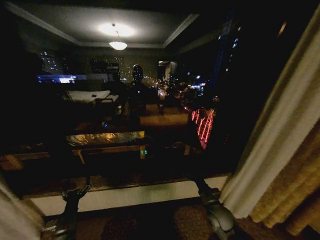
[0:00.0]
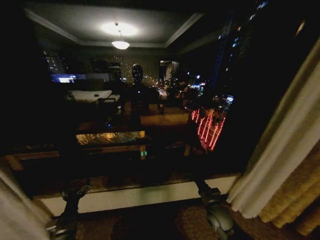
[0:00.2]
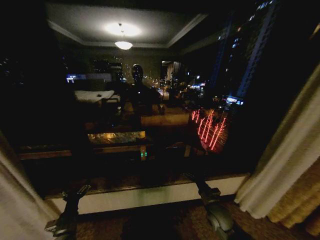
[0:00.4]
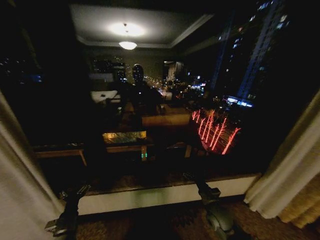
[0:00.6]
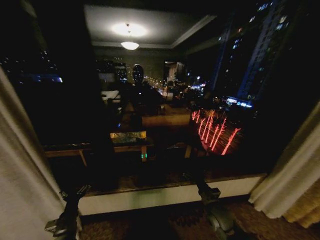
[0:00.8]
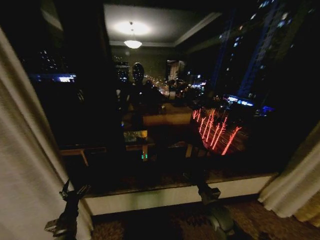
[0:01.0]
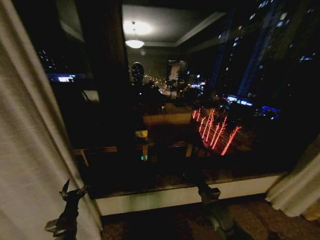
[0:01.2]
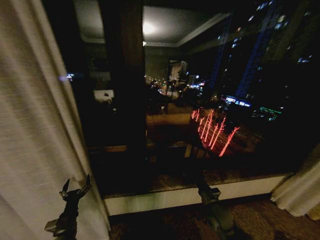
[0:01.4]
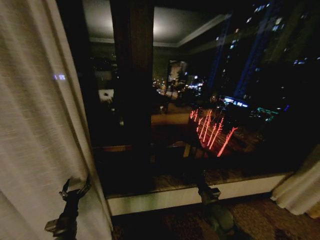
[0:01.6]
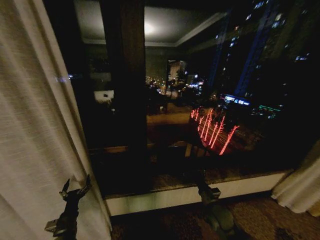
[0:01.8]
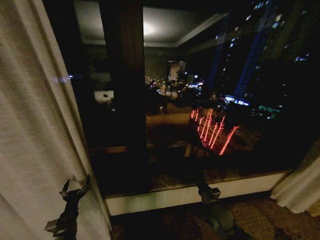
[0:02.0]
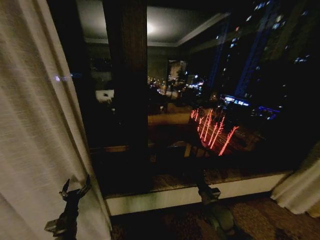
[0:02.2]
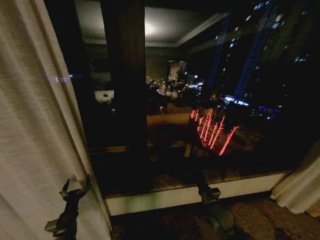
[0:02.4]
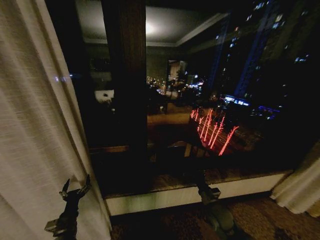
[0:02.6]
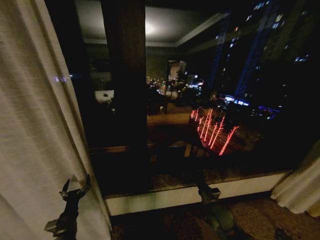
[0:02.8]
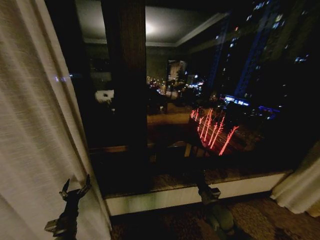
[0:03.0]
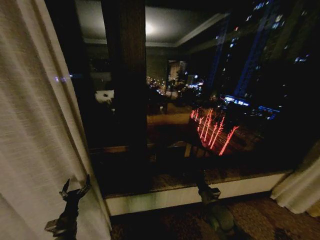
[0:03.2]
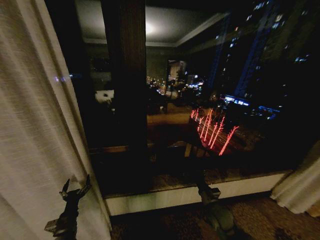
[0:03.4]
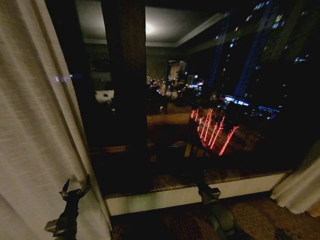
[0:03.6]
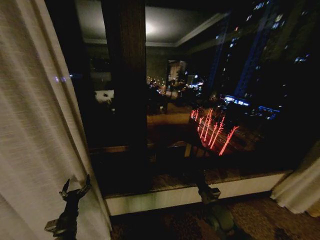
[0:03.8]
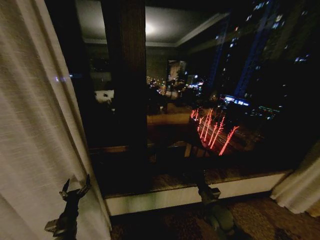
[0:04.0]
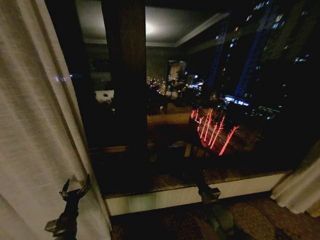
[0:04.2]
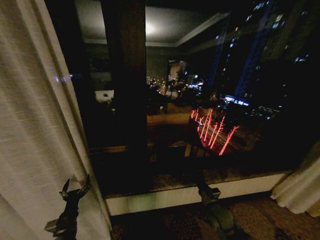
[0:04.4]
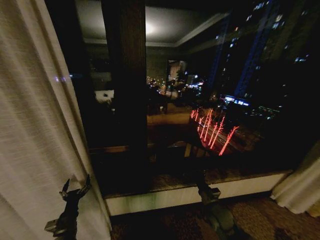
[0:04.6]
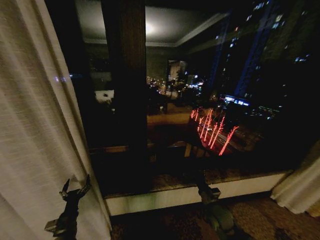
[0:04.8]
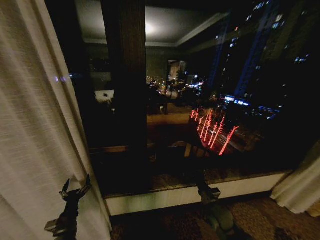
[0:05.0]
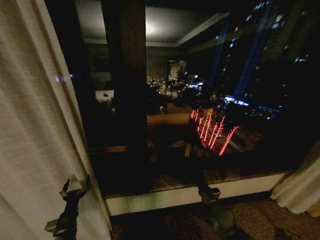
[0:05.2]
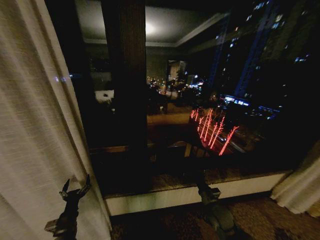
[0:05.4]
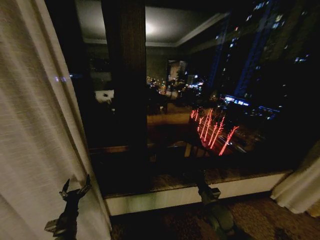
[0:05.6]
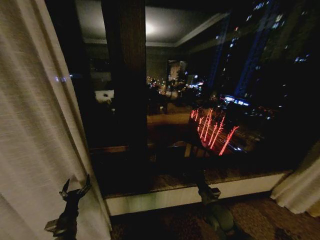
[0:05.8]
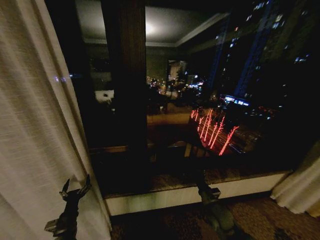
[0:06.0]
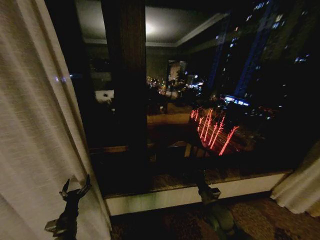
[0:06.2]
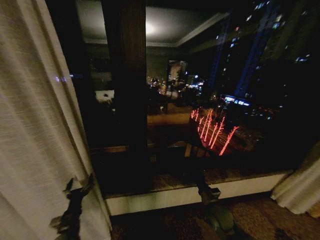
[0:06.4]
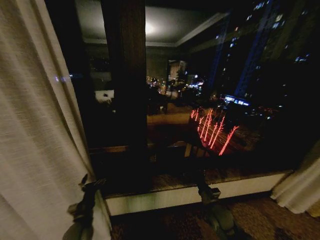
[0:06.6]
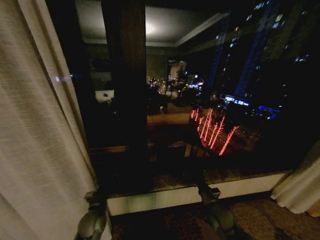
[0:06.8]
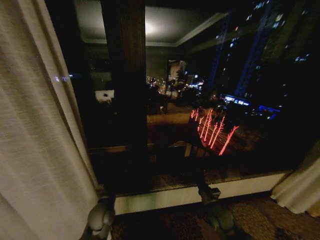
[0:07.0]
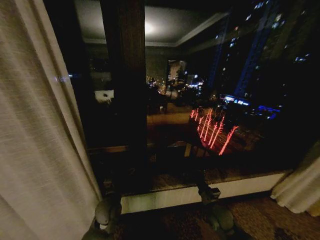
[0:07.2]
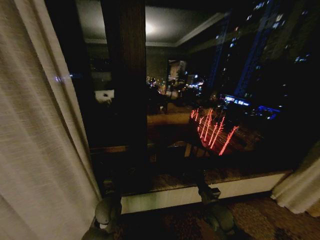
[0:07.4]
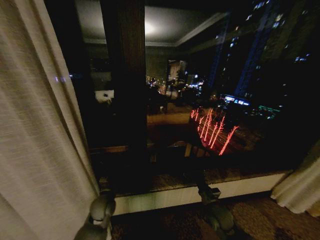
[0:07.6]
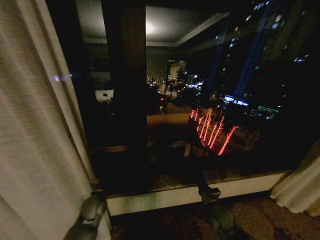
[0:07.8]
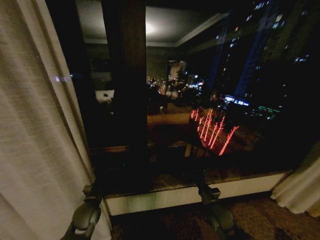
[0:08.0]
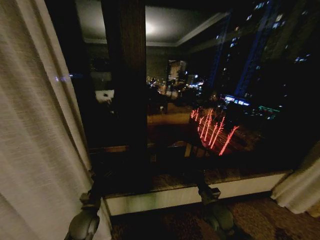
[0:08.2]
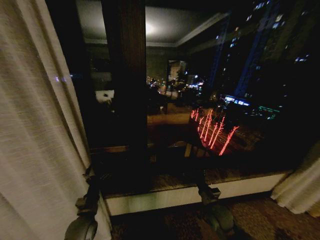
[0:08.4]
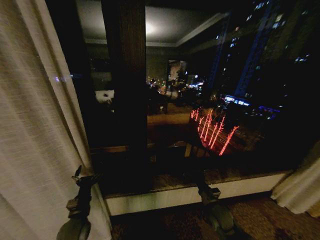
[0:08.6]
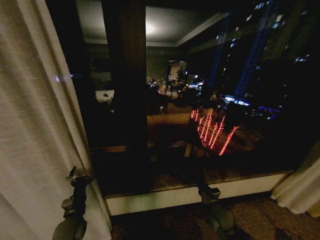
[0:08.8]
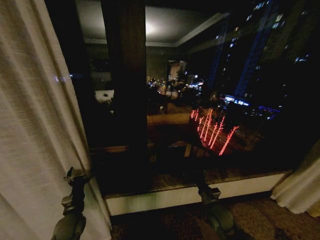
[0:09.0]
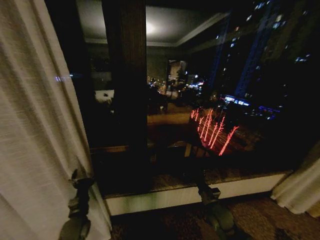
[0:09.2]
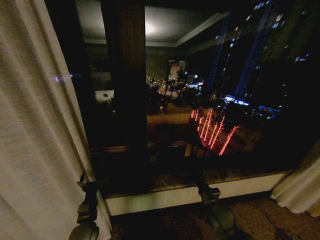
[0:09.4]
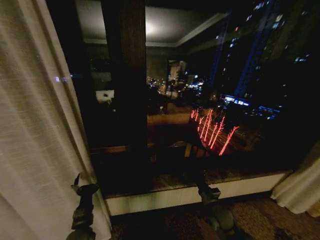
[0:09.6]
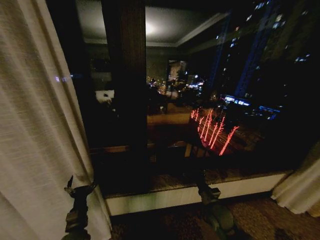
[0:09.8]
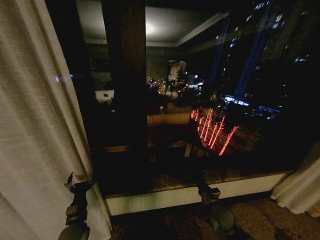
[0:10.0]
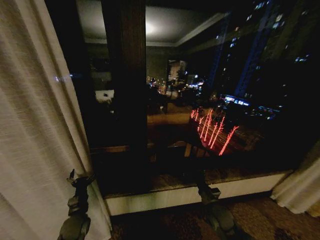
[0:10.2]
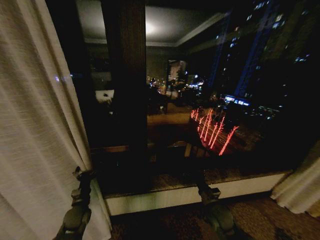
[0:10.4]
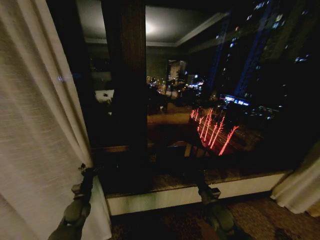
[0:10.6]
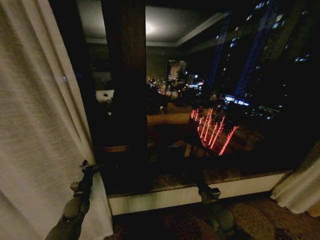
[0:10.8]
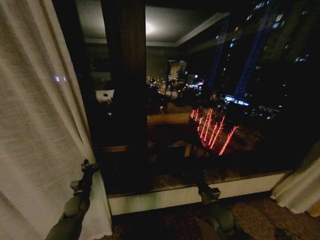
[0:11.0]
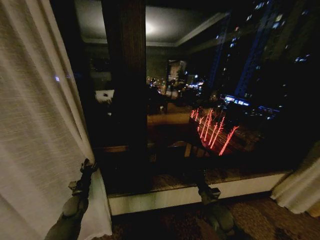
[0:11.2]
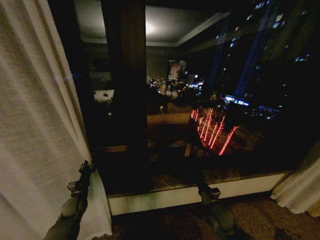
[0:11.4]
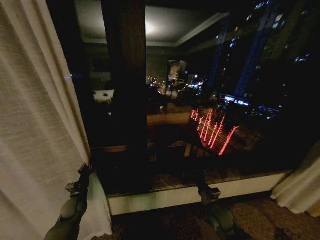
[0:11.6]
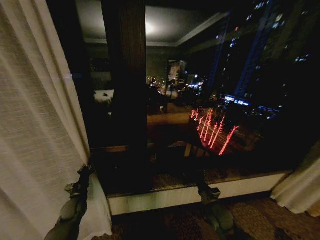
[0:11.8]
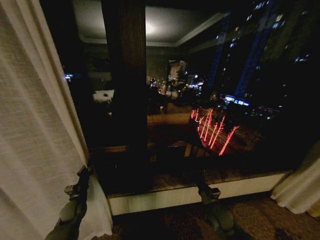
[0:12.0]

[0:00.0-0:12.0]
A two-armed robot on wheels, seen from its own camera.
Task of the whole recording: Open the curtains by pulling them apart, changing their state from closed to fully open.
0:01.6 to 0:06.0: Both grippers stay put.
0:06.0 to 0:07.6: The left gripper moves to the right, forward and upward, about 20 cm.
0:07.6 to 0:09.0: The left gripper is displaced to the left and backward by some 10 cm.
0:10.4 to 0:12.0: The left gripper ends up approximately 5 cm from where it was, and closes.

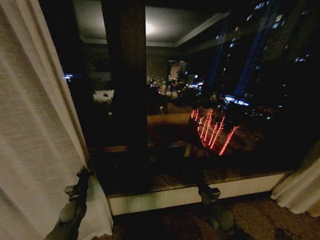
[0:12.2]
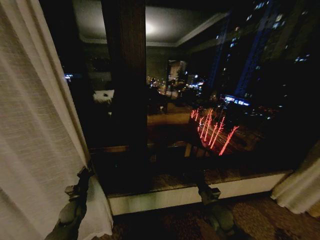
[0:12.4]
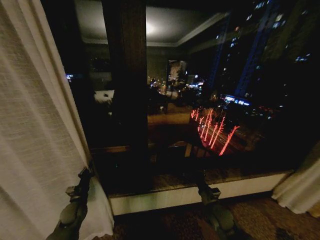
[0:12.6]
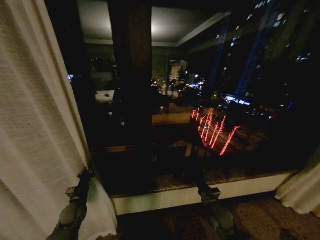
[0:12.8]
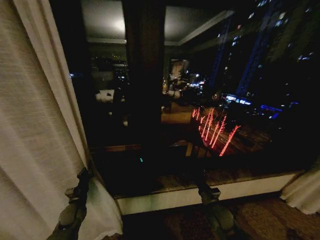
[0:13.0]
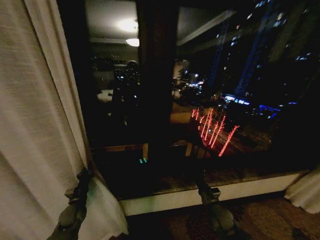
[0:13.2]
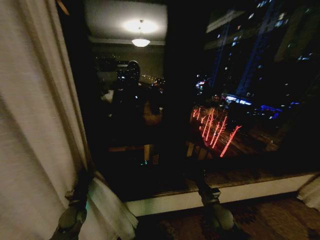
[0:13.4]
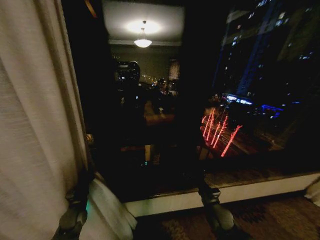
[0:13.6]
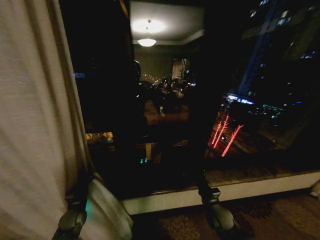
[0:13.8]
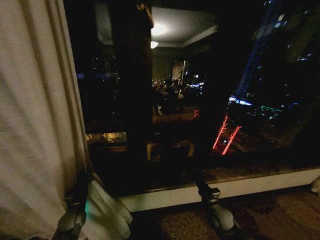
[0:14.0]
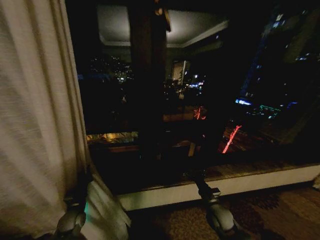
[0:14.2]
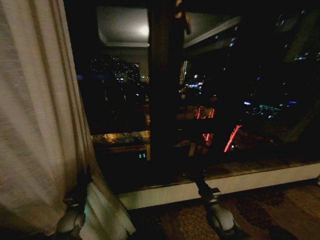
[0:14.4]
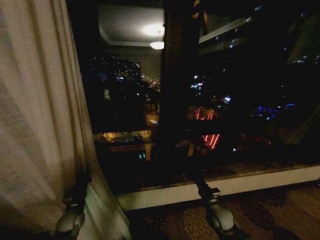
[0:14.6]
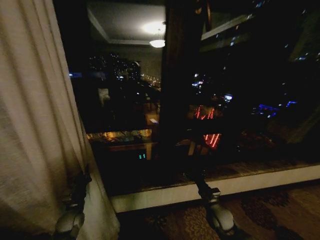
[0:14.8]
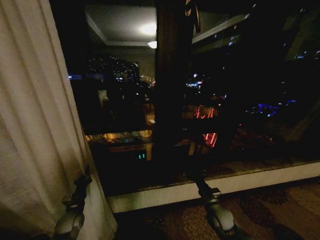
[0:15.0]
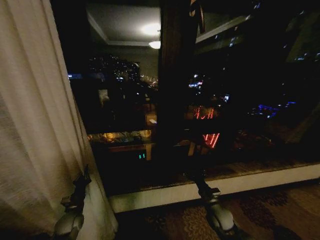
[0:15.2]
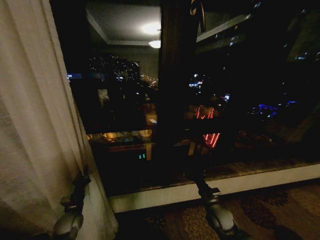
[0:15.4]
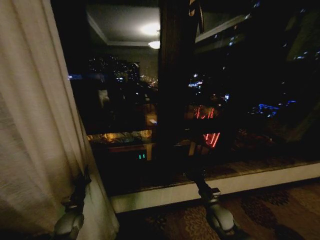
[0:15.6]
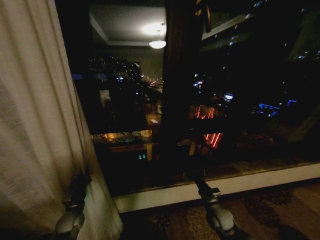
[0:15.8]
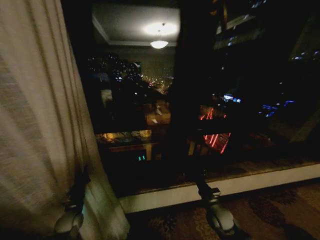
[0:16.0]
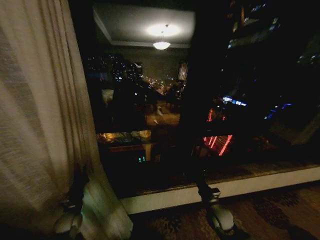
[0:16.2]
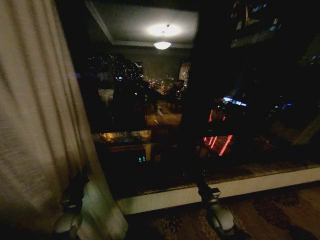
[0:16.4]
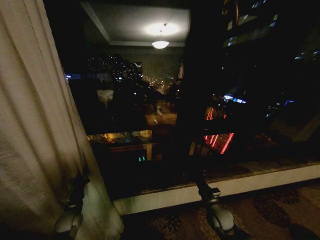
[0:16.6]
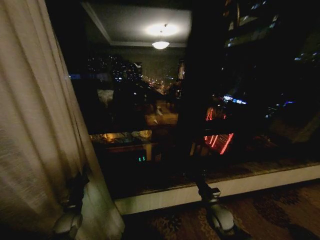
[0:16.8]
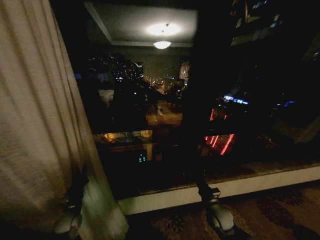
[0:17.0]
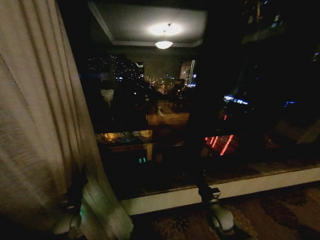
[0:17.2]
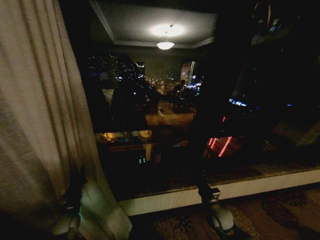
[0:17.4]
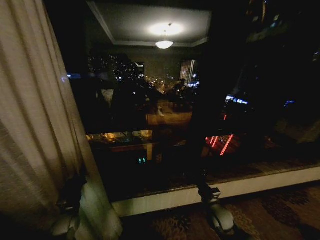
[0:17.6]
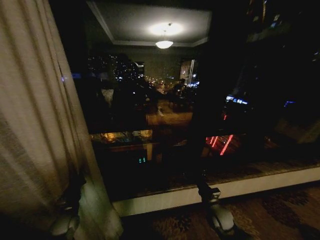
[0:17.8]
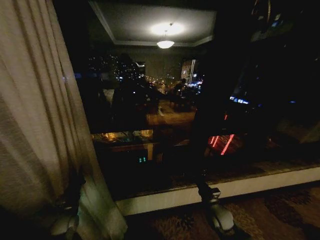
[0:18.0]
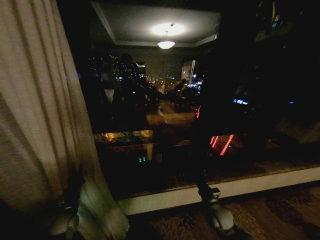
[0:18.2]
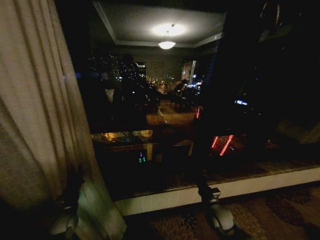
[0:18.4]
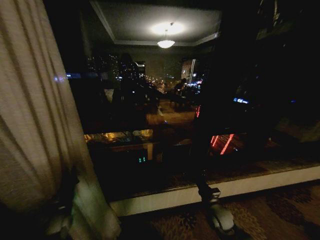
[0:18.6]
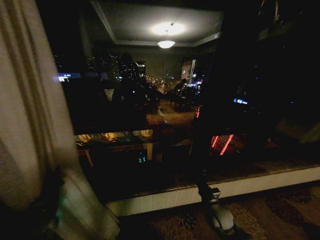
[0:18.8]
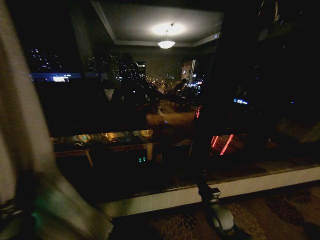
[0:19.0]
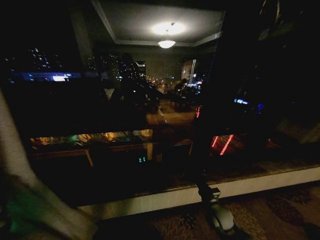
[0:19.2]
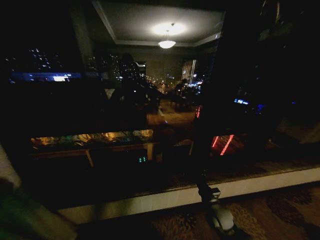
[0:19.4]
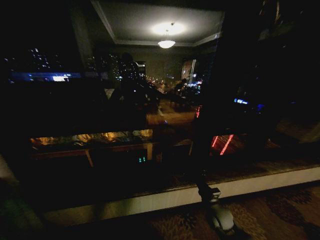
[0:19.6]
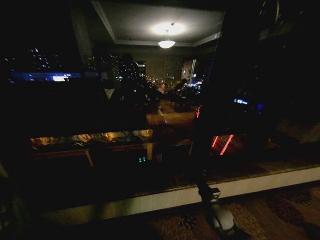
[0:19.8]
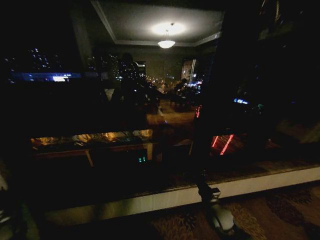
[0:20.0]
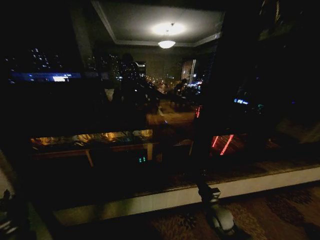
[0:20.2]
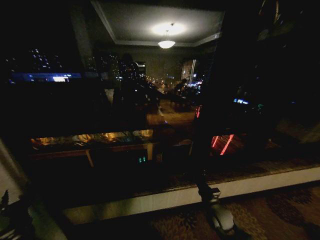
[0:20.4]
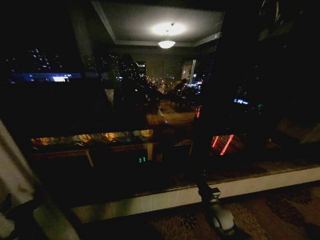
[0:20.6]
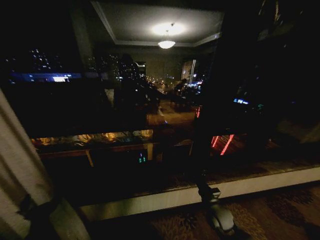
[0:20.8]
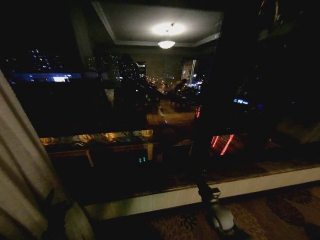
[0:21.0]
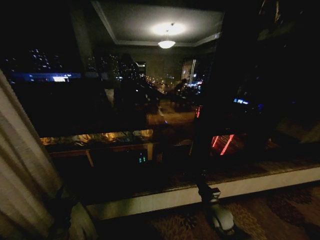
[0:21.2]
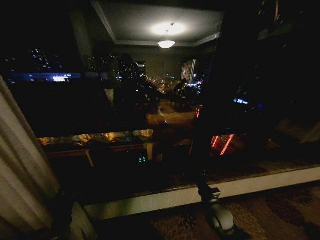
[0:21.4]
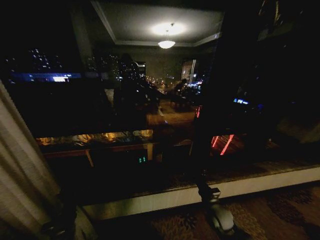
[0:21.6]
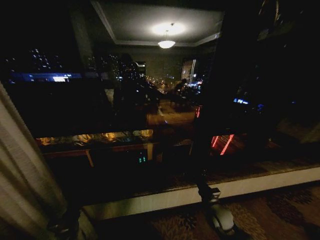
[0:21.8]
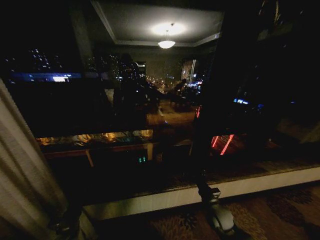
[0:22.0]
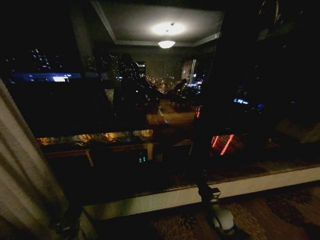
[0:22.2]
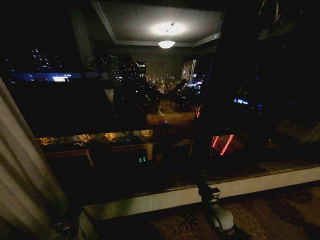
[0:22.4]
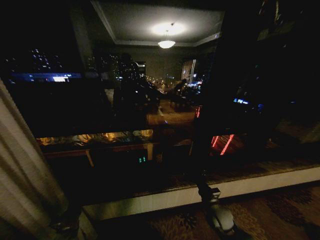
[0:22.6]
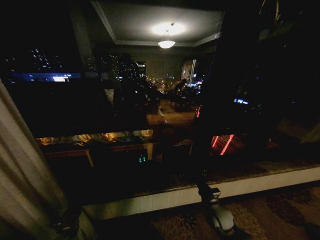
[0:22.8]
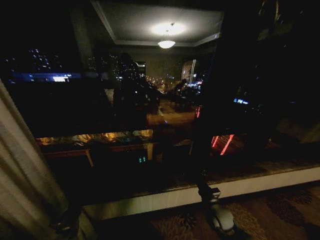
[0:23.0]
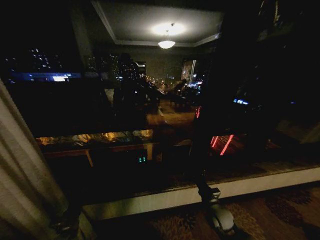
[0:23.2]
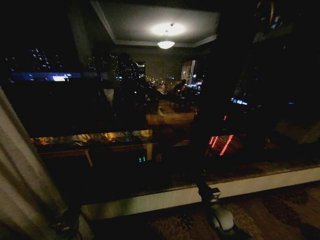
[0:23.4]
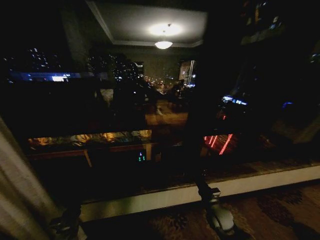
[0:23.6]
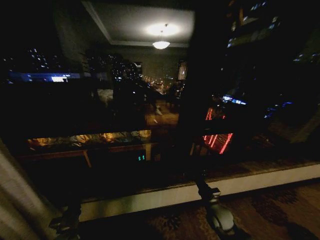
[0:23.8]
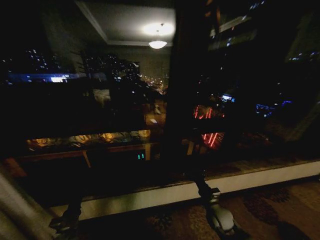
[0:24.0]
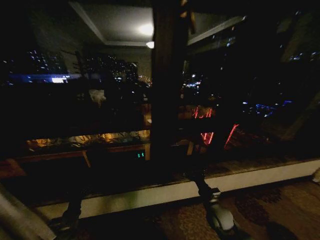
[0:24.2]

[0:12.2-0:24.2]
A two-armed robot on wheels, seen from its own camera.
Task of the whole recording: Open the curtains by pulling them apart, changing their state from closed to fully open.
0:15.2 to 0:18.2: The grippers make only small movements.
0:18.2 to 0:19.8: The left gripper moves to the left, approximately 25 cm.
0:19.8 to 0:21.2: The left gripper goes approximately 30 cm to the right, and opens.
0:21.2 to 0:22.6: The left gripper heads forward, covering roughly 5 cm.
